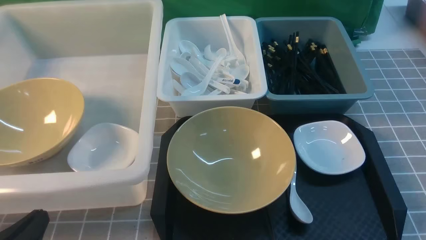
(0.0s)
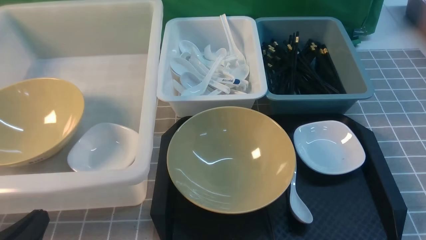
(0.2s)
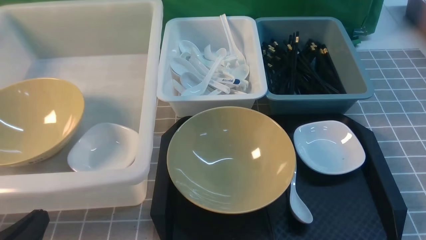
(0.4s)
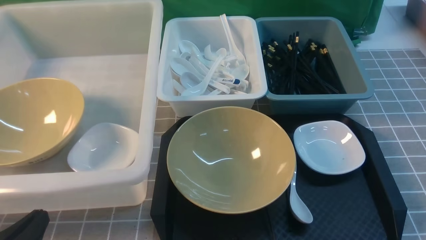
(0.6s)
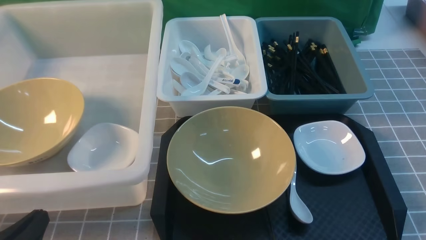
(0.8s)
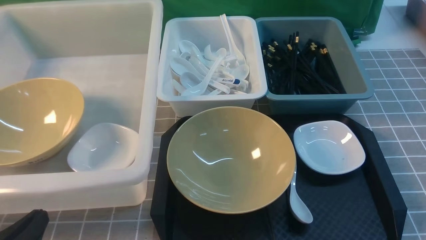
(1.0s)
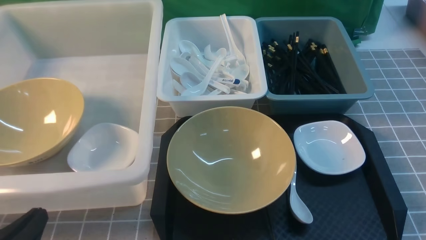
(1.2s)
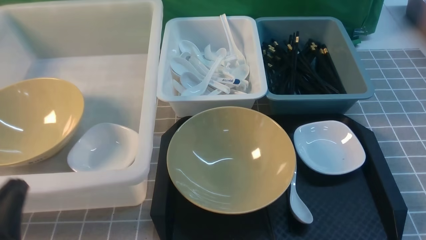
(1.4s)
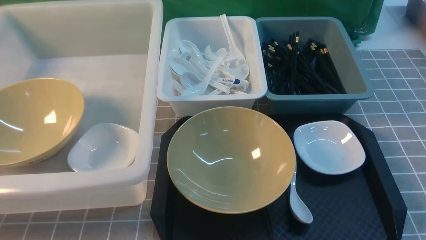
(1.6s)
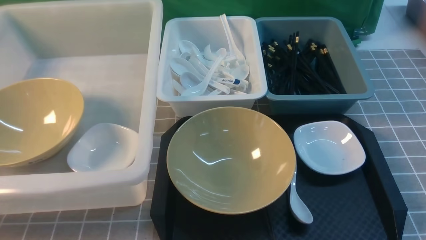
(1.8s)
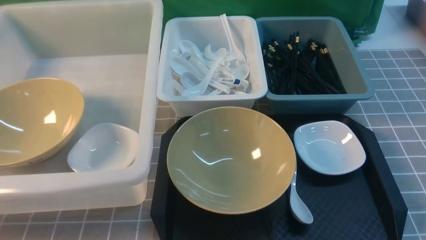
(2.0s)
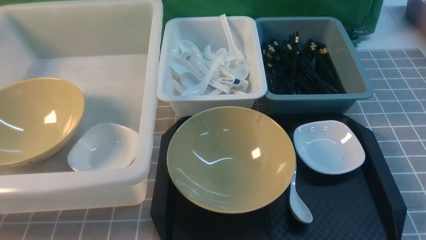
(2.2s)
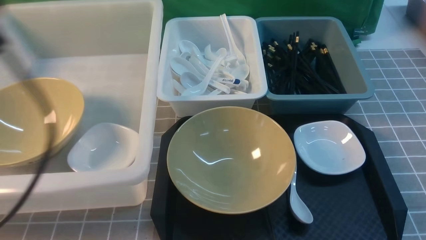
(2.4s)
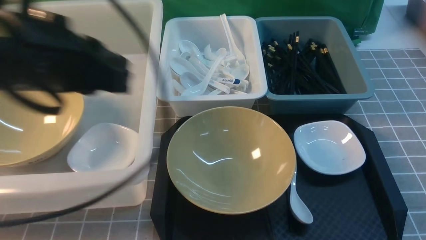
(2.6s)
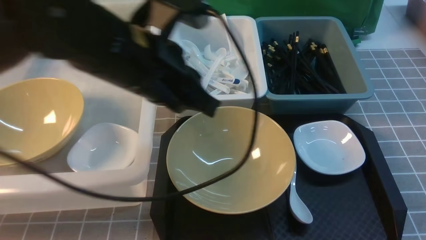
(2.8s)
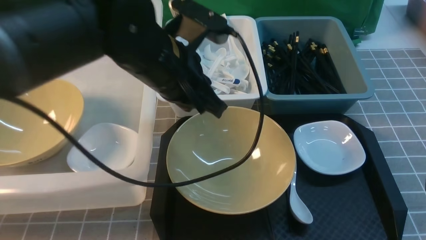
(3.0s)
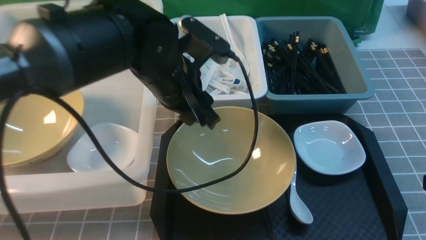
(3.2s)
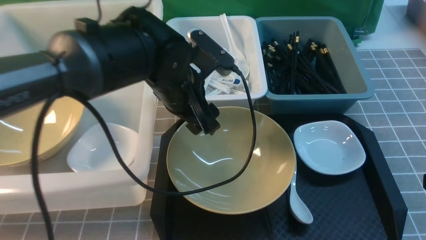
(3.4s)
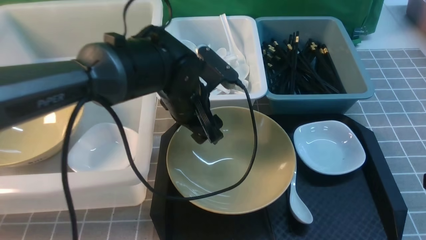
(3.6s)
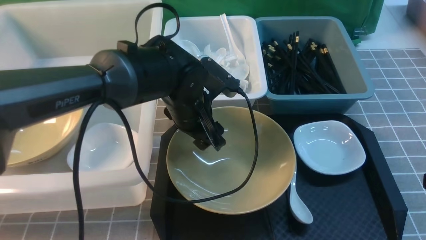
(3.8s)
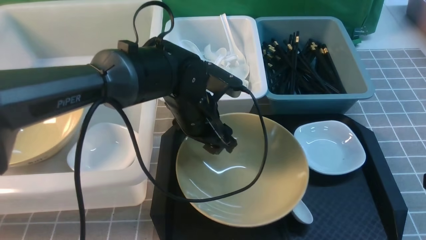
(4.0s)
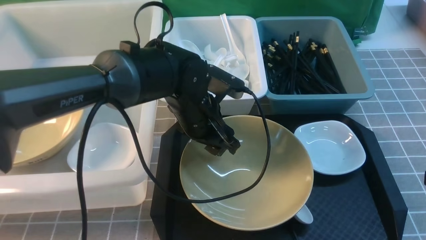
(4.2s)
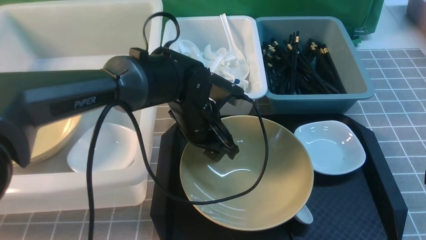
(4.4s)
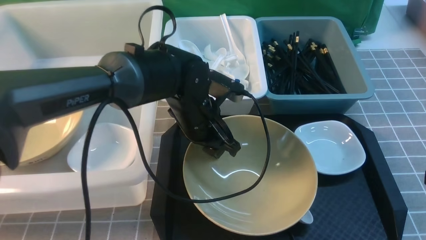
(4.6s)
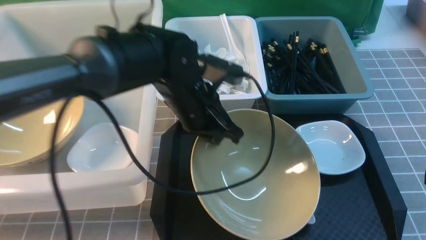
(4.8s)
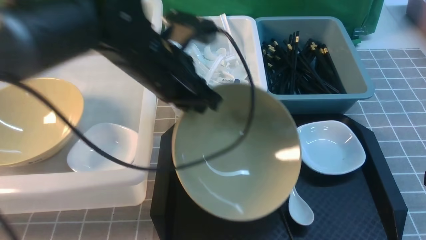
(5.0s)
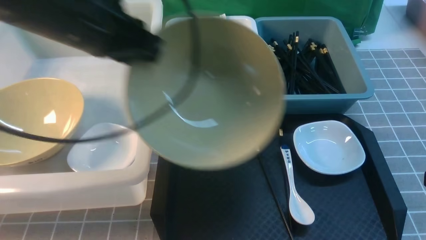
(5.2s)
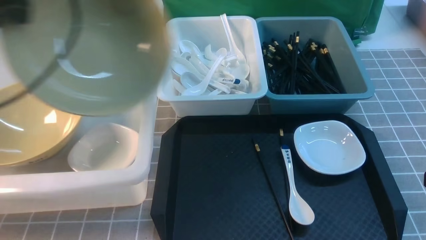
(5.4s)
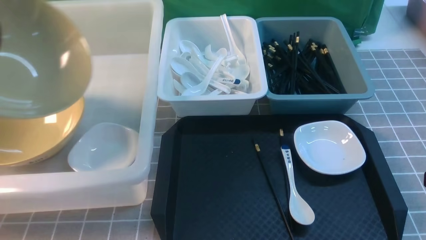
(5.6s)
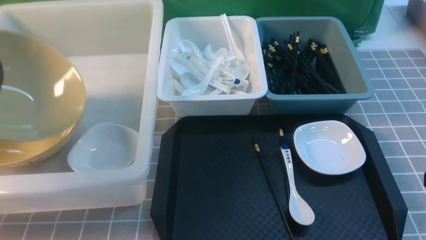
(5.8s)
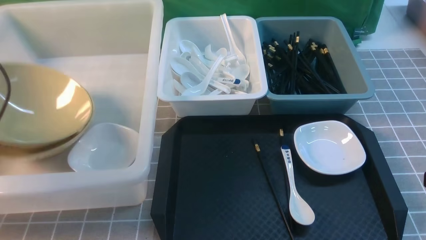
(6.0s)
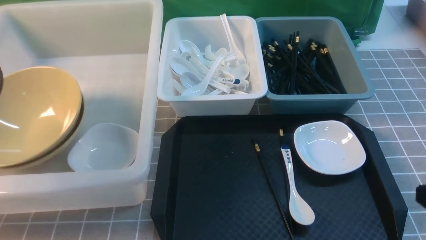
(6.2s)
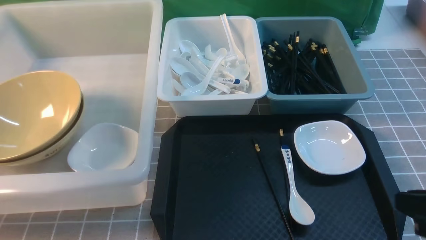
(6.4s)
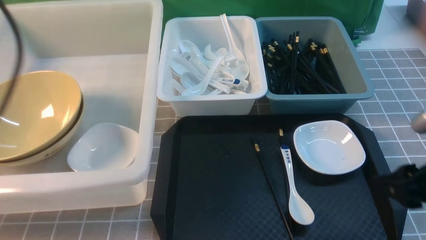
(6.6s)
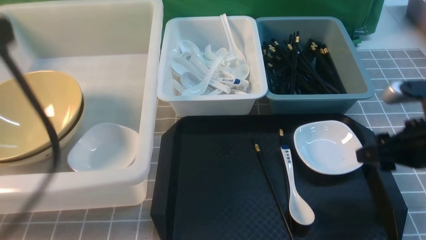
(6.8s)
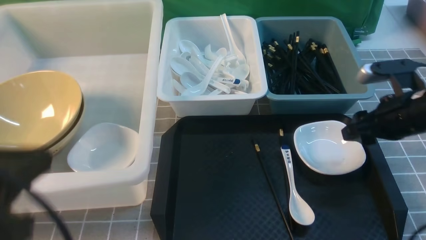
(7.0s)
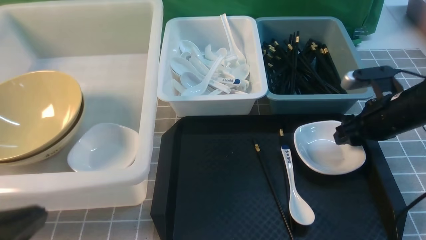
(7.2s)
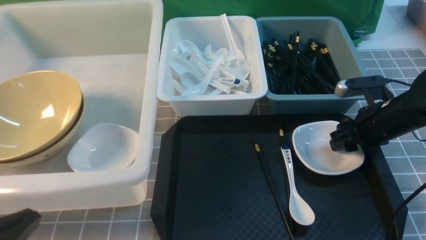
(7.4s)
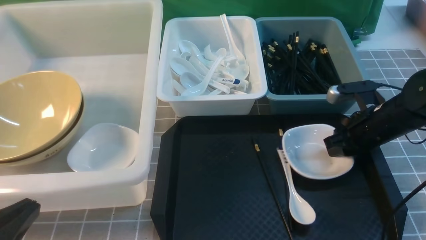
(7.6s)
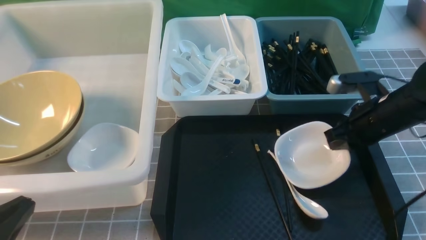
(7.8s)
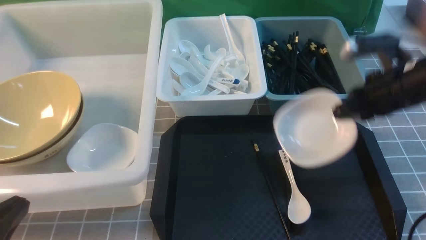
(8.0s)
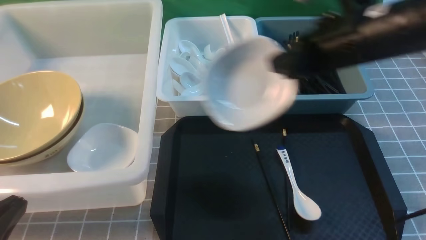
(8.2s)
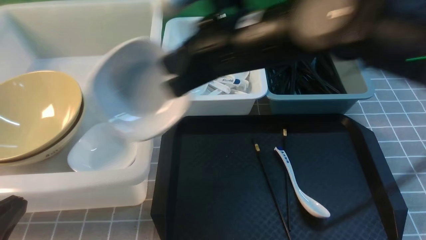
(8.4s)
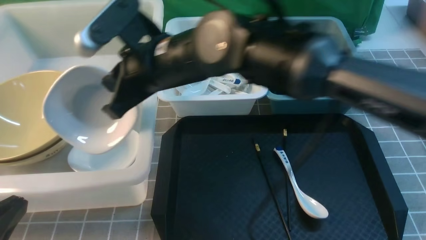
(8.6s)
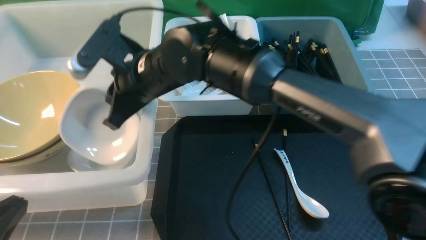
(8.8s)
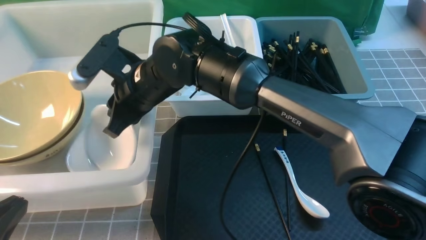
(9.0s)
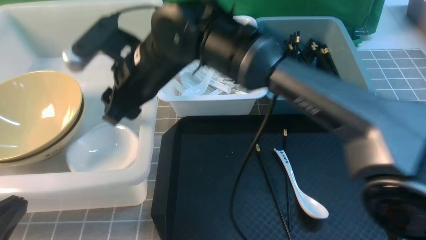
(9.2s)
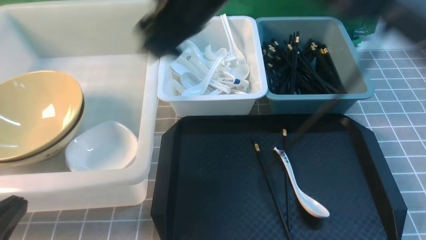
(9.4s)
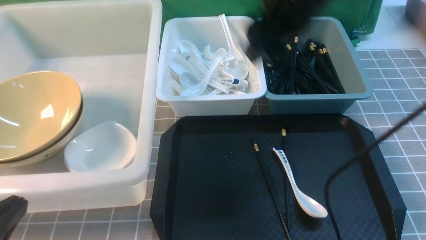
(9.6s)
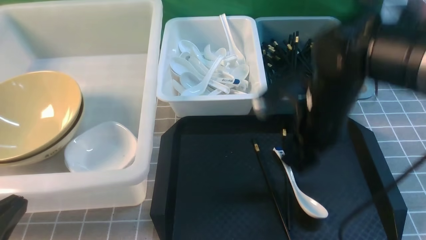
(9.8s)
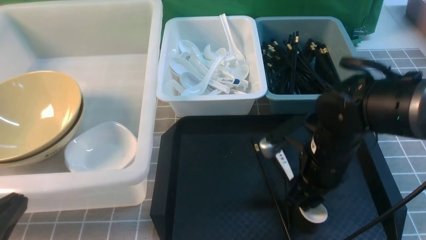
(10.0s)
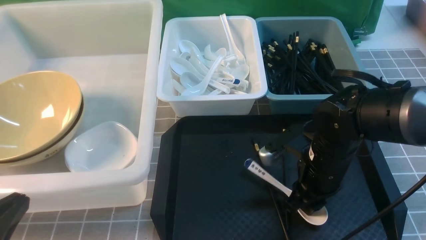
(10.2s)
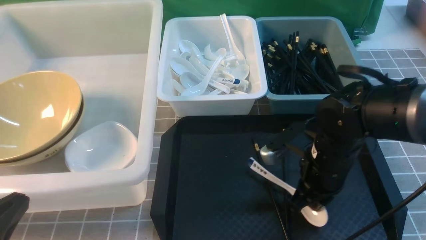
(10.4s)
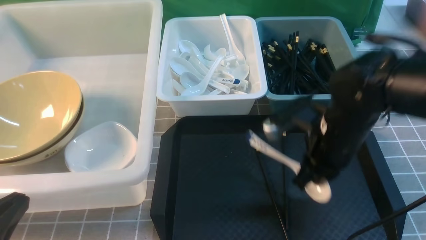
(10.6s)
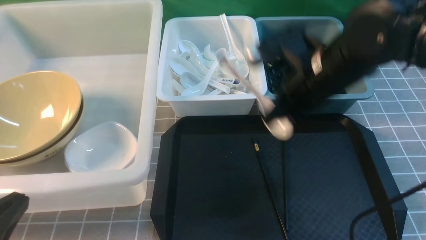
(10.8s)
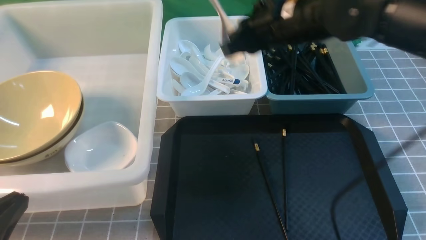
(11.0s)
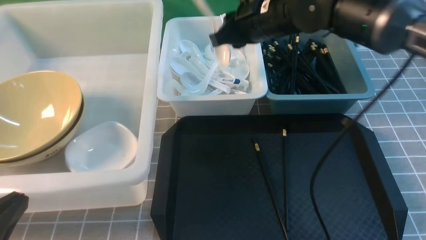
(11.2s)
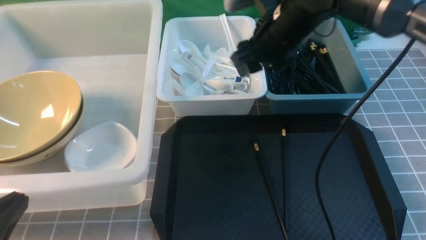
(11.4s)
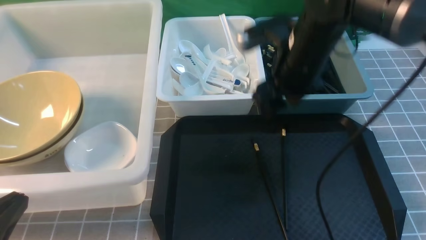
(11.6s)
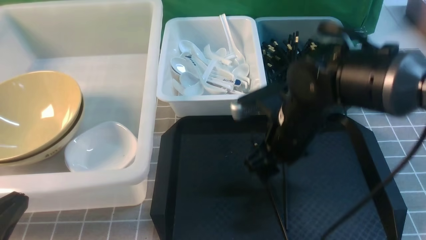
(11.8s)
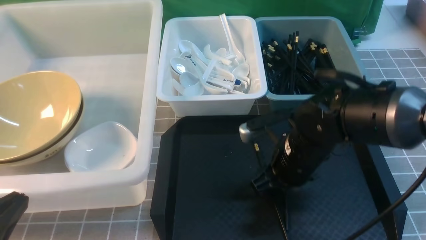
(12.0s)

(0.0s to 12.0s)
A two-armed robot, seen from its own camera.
Task of the whole recording: on grey table put chopsticks spoon bowls plates into blue grey white boxes.
Step, 0.0s - 5.0s: use the left arm to grab the yellow noodle bowl on the left.
Step, 5.2s - 6.4s: use the left arm to put the noodle bowl into the large storage box on the left.
Step, 6.6s - 7.8s: use the right arm to grab the plate.
Step, 8.0s - 9.2s: use the right arm to put the plate into the large storage box on the left.
Step, 9.4s - 10.4s: use the right arm to grab the soup spoon in the middle.
Step, 10.6s - 11.4s: use the right arm to put the soup spoon into the small storage box in the middle.
0.0s - 1.6s: The left gripper goes about 5 cm upward.
1.6s - 3.0s: The right gripper shifts some 5 cm forward, travels upward and back again, about 10 cm each way, and closes up, while the left gripper shifts some 30 cm forward and to the right.
3.0s - 4.4s: The left gripper travels downward by about 10 cm, and opens its fingers.
4.4s - 6.0s: The left gripper is displaced to the left by roughly 35 cm, and closes, then opens again.
6.0s - 7.6s: The right gripper is displaced forward by some 25 cm, and opens up, while the left gripper heads backward and to the right, covering roughly 30 cm, and closes up.
7.6s - 9.0s: The right gripper goes some 35 cm to the left, and closes, then opens again.
9.0s - 10.4s: The right gripper travels to the right by about 25 cm, and opens, then closes once more.
10.4s - 12.0s: The right gripper moves roughly 15 cm upward and comes back, and opens.

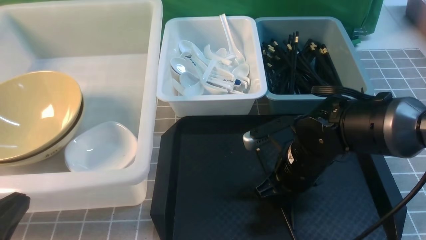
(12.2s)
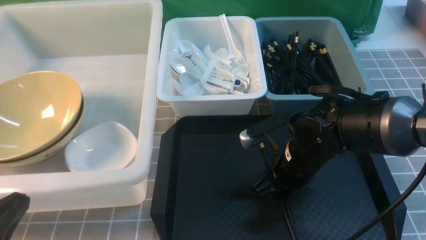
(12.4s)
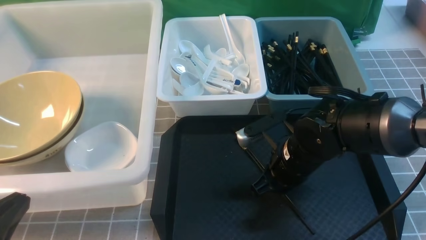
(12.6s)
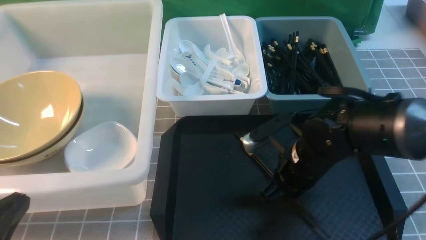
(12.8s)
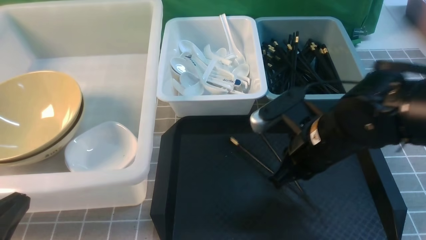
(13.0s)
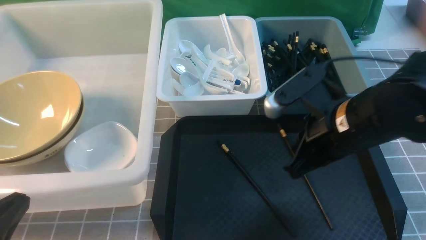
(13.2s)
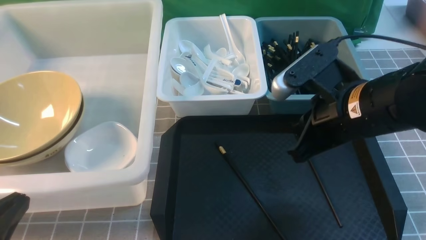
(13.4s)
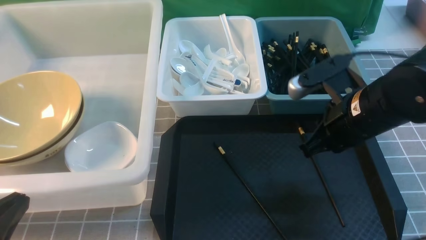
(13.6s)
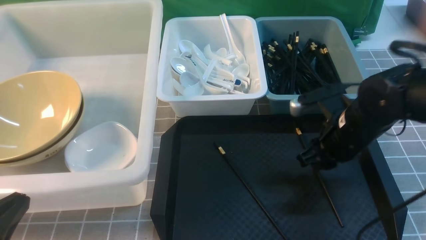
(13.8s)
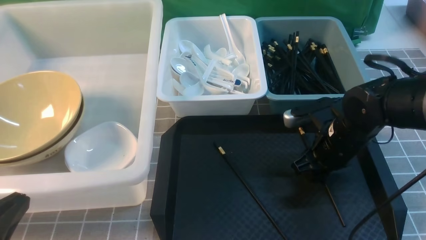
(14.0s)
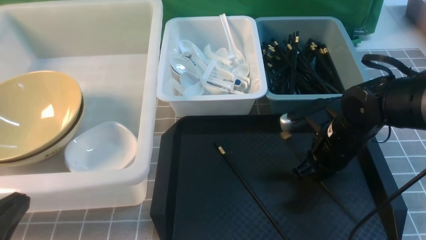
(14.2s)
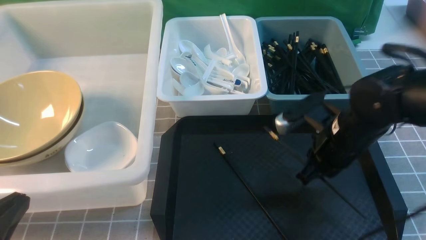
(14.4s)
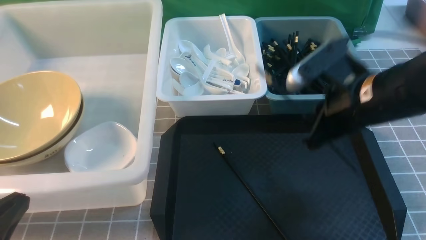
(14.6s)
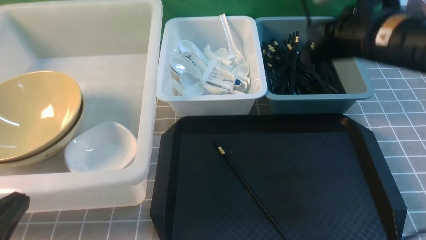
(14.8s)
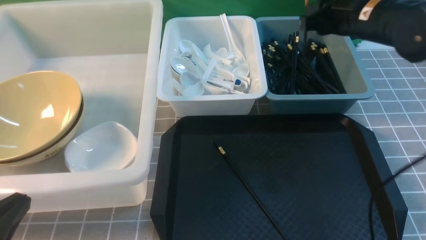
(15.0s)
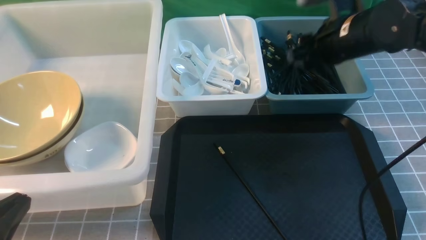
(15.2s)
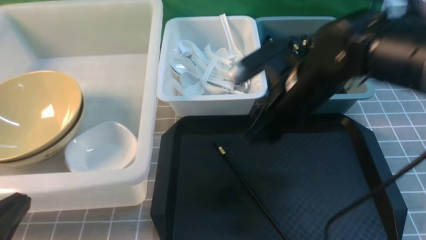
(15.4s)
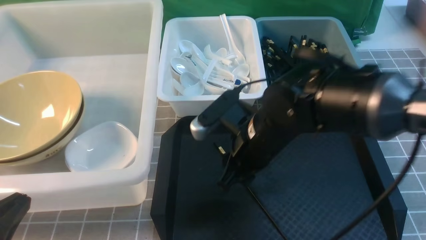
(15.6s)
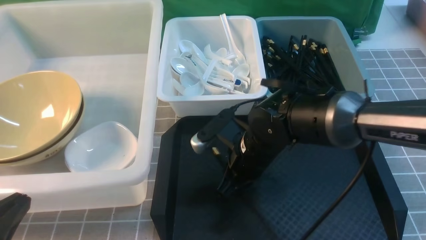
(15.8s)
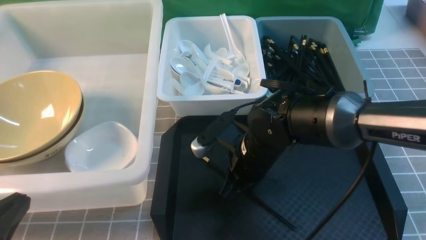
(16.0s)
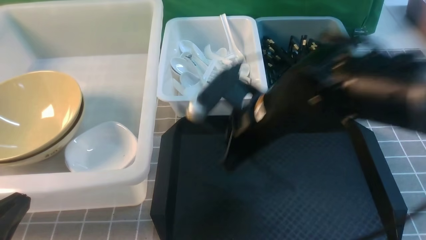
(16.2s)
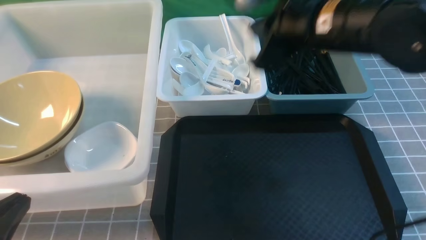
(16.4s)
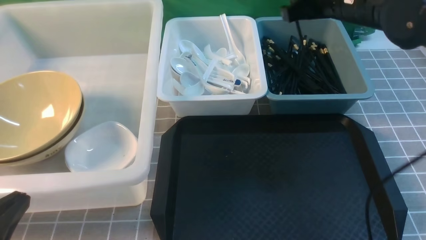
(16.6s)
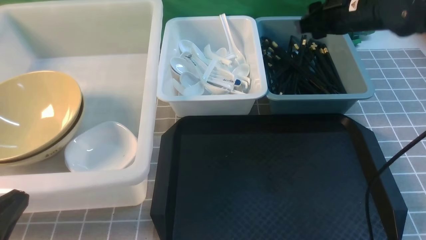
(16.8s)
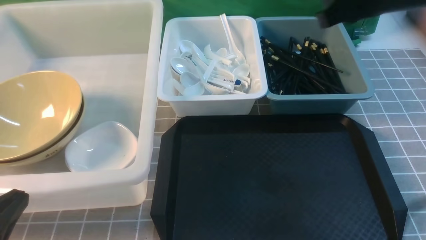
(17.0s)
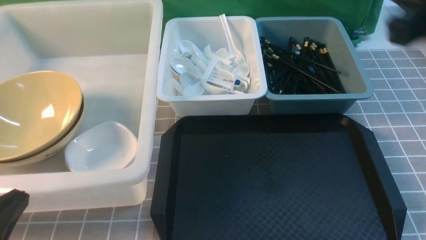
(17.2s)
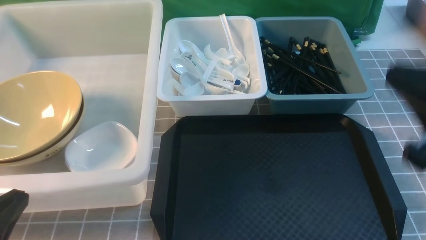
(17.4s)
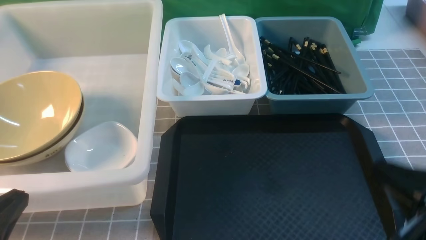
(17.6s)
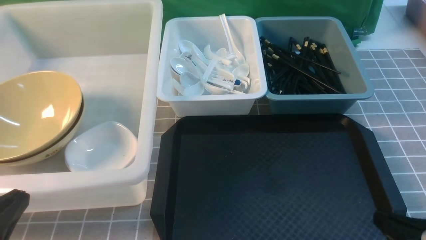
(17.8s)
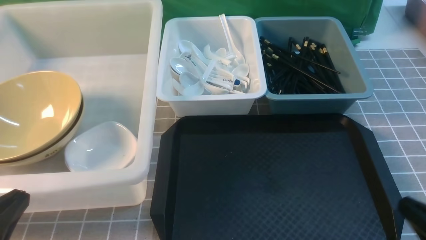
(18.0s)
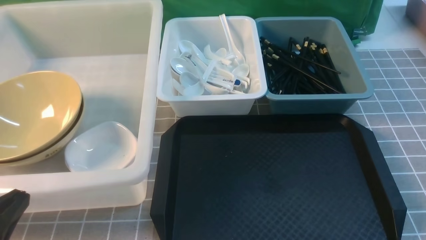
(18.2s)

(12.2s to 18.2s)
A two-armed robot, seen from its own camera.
Task of the whole recording: on grey table put chopsticks spoon bowls plates into blue grey white boxes.
Step, 12.2s - 14.4s: use the right arm to grab a chopstick.
Step, 14.6s - 15.2s: use the right arm to put a chopstick into the small storage box on the right.
Step, 15.4s - 16.2s: use the right arm to grab a chopstick.
Step, 16.4s - 16.8s: use the right arm to put a chopstick into the small storage box on the right.
12.2s - 13.8s: The right gripper heads to the right, covering approximately 5 cm, moves roughly 10 cm upward and comes back, and closes up.
13.8s - 15.2s: The right gripper heads upward and forward, covering roughly 10 cm, and closes, then reopens.
15.2s - 16.6s: The right gripper is displaced upward by approximately 5 cm, and closes, then reopens.
16.6s - 18.2s: The right gripper travels backward, downward and to the right by some 35 cm, and closes its fingers.
